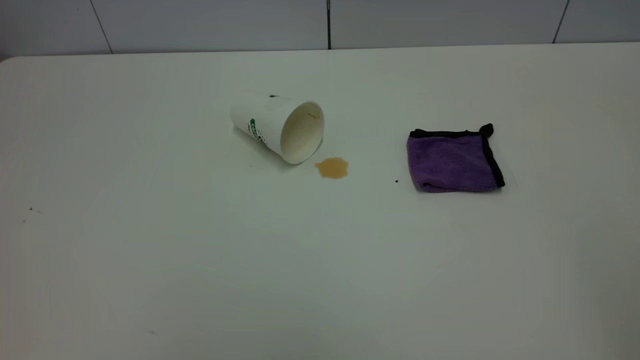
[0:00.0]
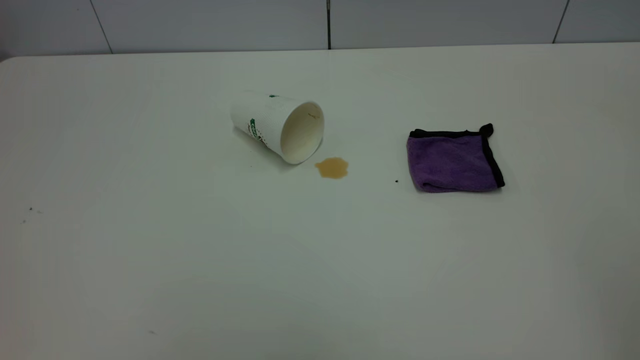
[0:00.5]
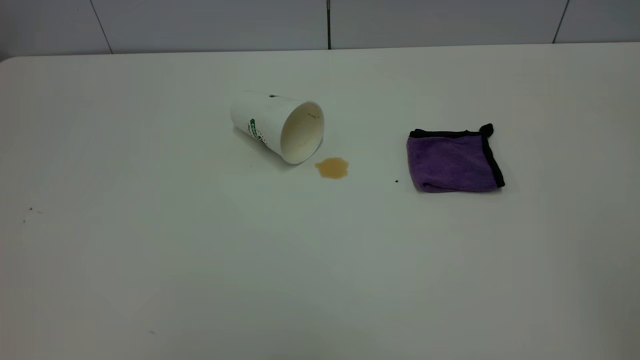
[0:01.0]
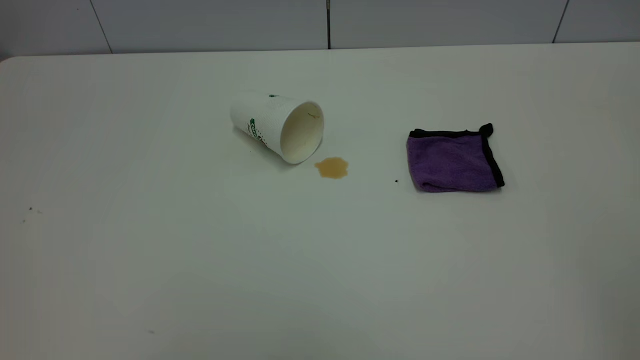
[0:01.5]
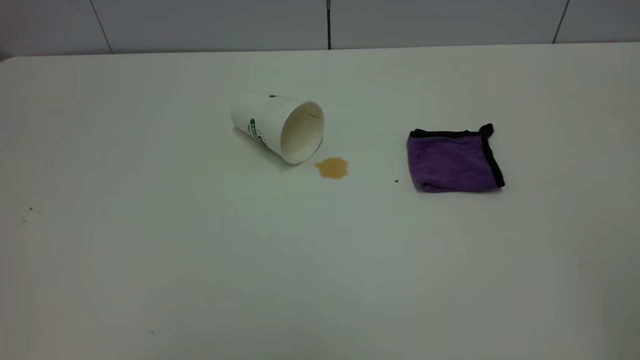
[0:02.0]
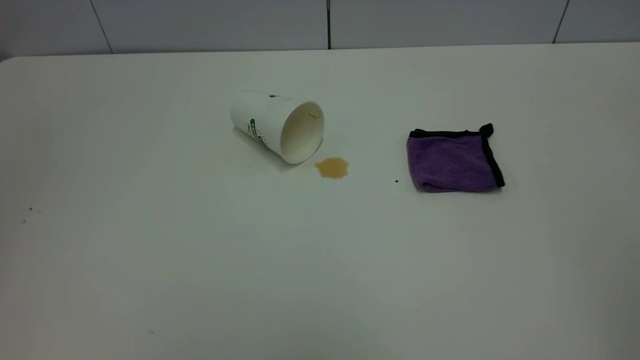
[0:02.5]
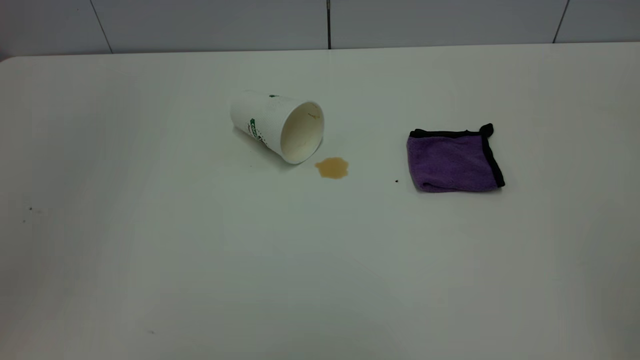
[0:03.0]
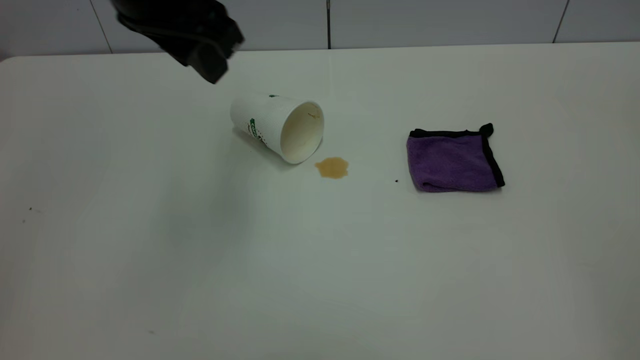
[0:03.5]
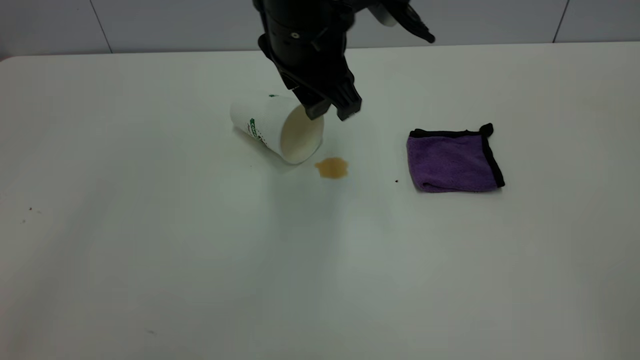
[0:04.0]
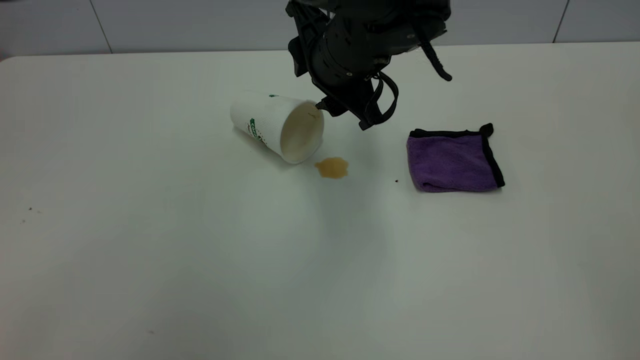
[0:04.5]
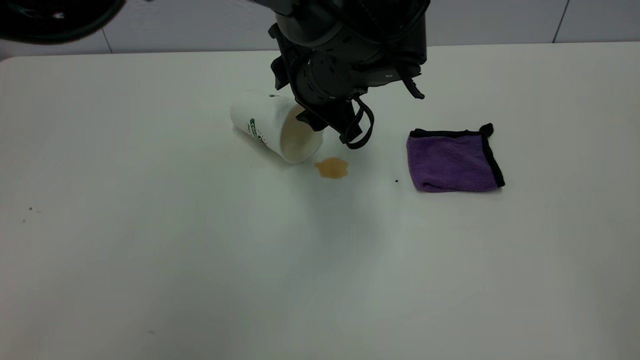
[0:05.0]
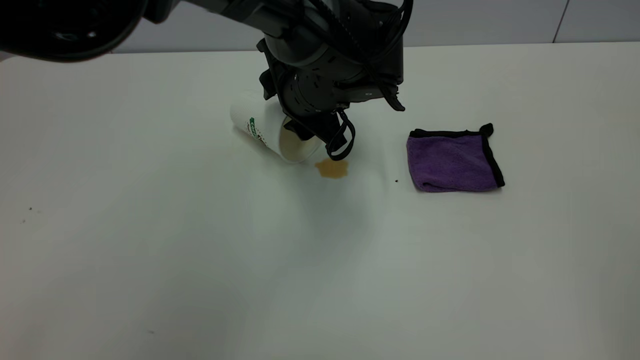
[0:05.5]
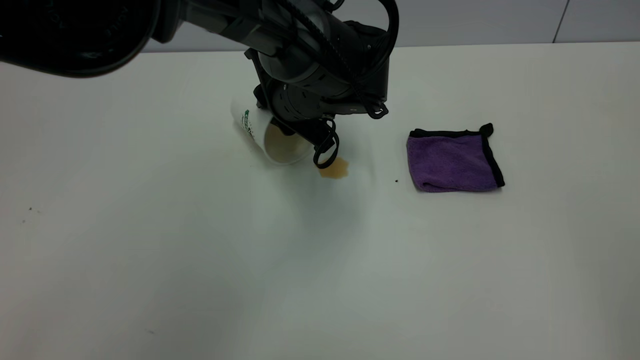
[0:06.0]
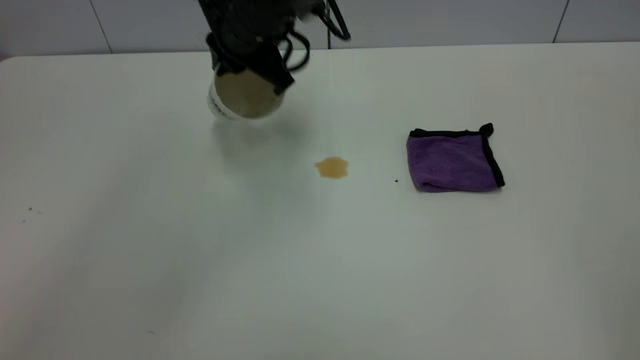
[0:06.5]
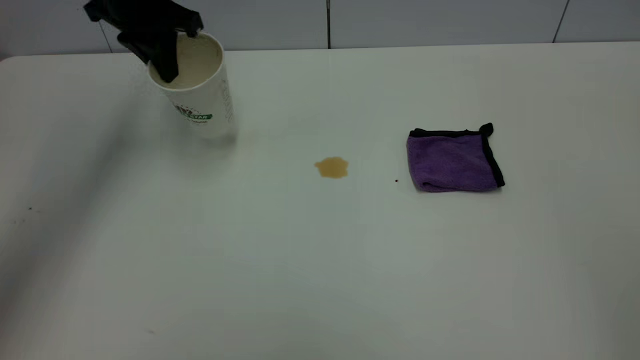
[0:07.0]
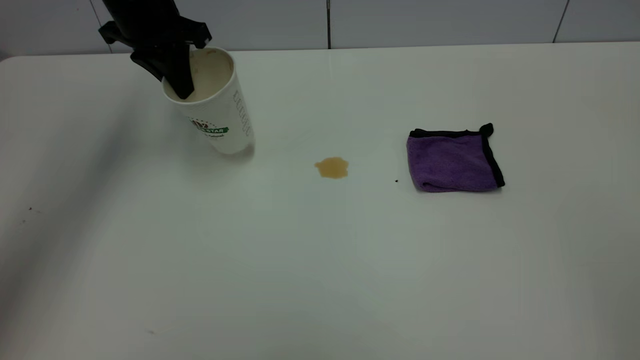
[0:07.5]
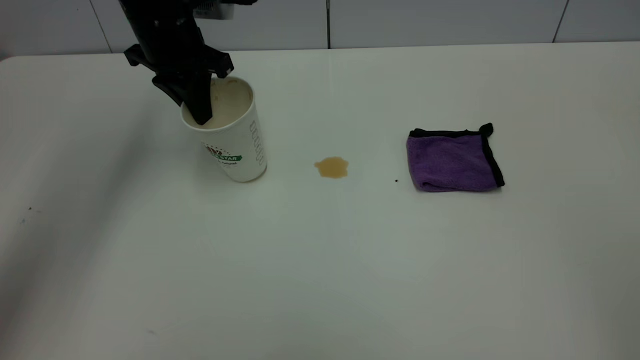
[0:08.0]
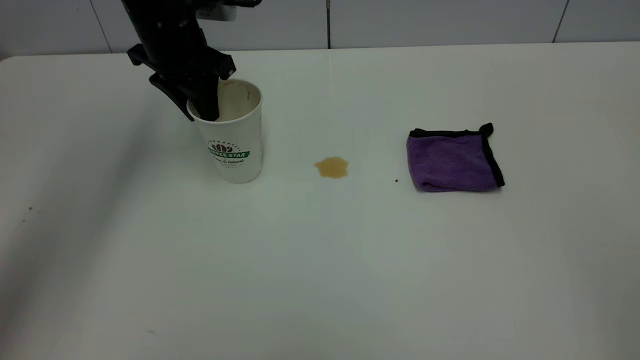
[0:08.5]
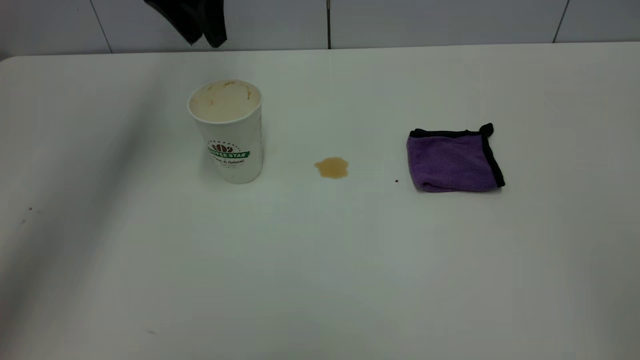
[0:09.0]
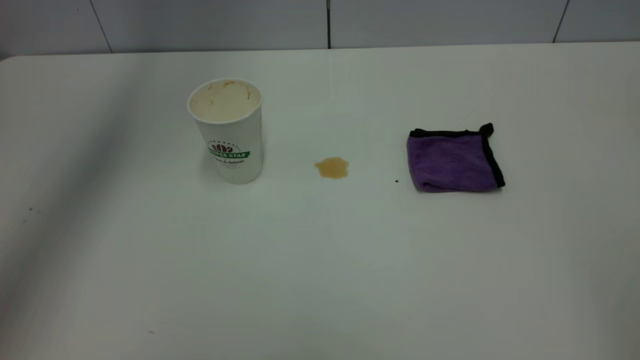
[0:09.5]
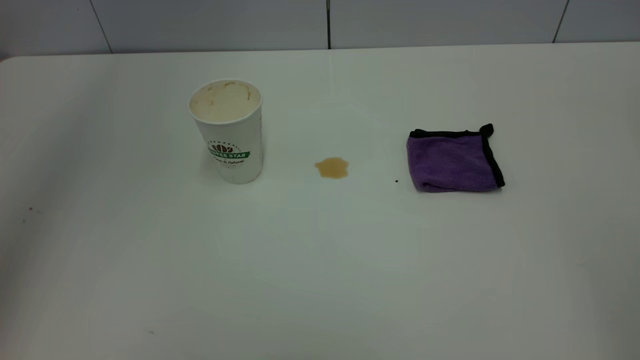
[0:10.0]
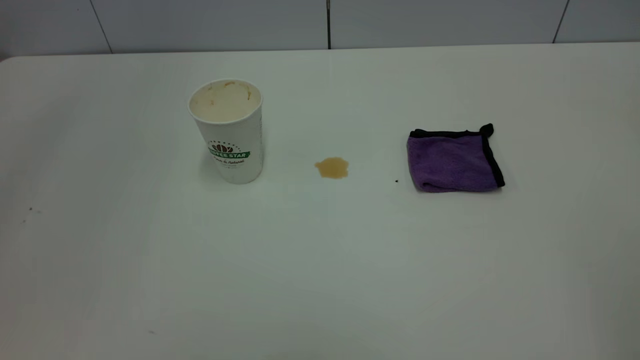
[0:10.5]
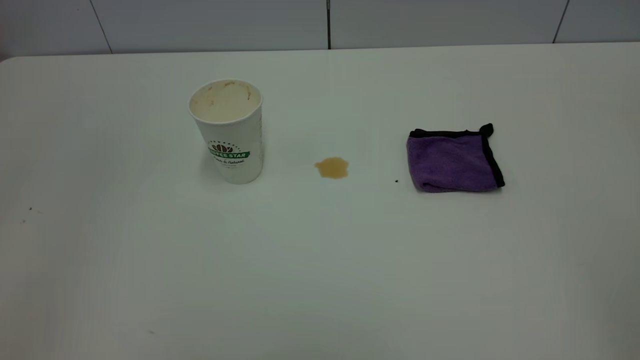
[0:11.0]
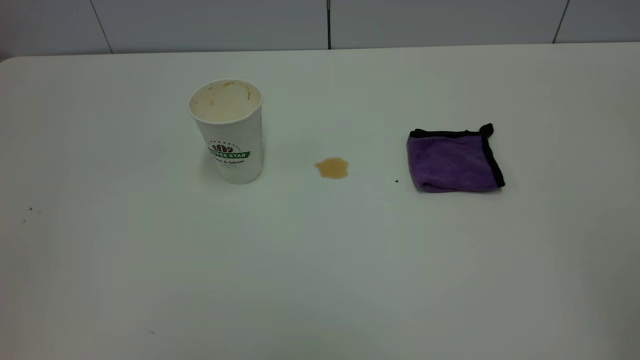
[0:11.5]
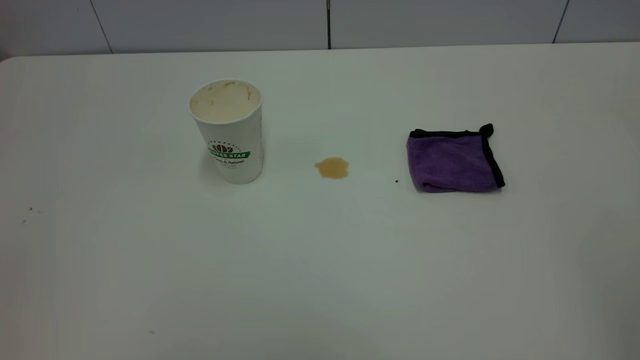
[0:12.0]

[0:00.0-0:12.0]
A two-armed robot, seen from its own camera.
Task of the whole recording: the left gripper pick up the fallen cup and place it upright, the right gripper grasp the purple rag and wipe the tea stain on the table, the right gripper put the purple rag back in its original position.
Step, 0:00.0 to 0:08.5: Stand the paper cup upright.
0:00.0 to 0:02.0: Both grippers stay put.
0:02.0 to 0:04.0: The left gripper travels forward and to the right by some 50 cm.
0:04.0 to 0:06.0: The left gripper is displaced downward and forward by some 15 cm, and closes.
0:06.0 to 0:08.0: The left gripper is displaced to the left and upward by some 20 cm, and closes.
0:08.0 to 0:10.0: The left gripper travels upward by some 40 cm, and opens up.

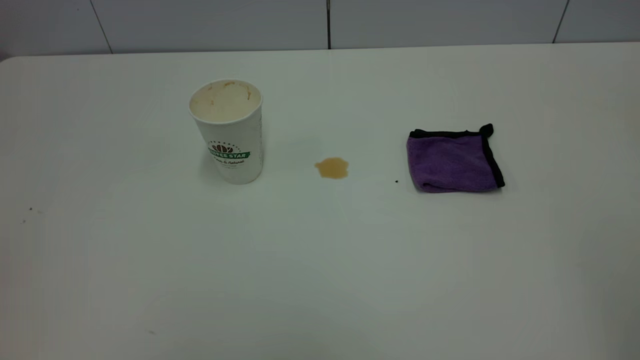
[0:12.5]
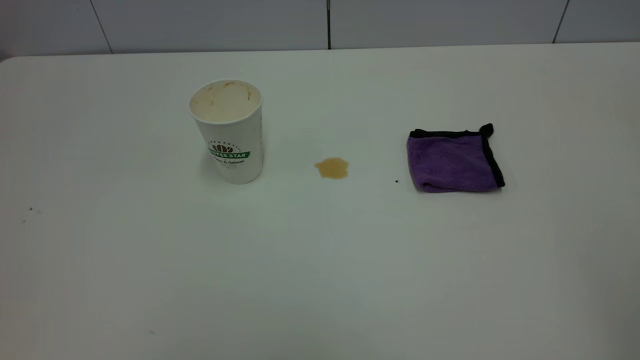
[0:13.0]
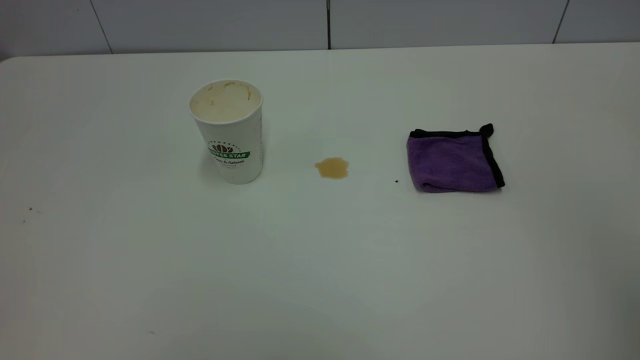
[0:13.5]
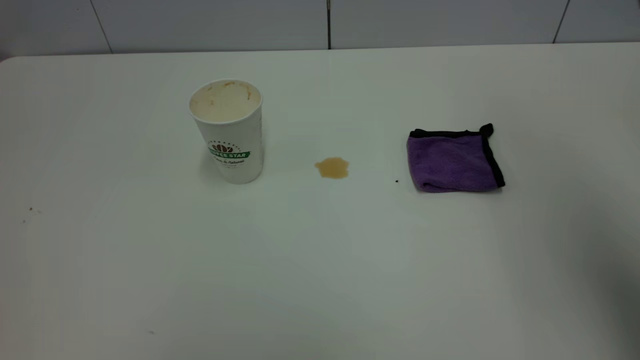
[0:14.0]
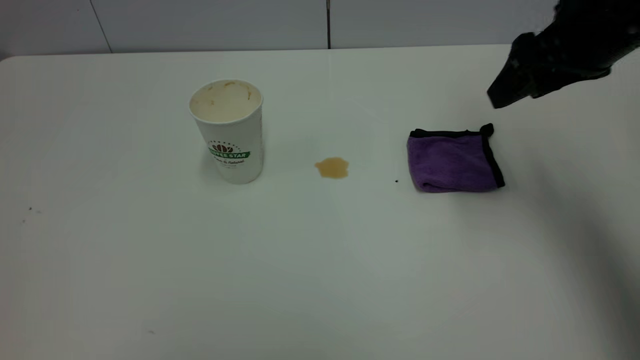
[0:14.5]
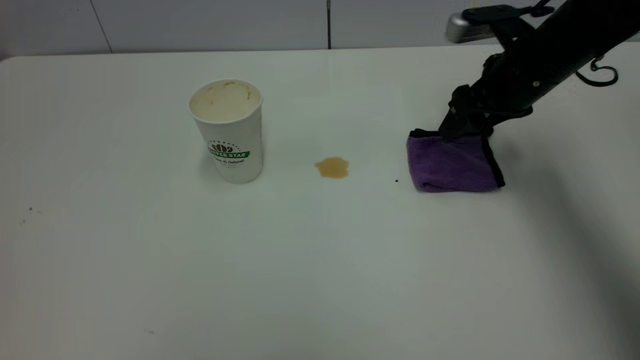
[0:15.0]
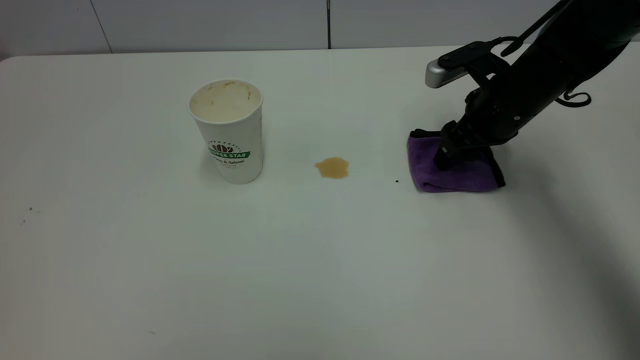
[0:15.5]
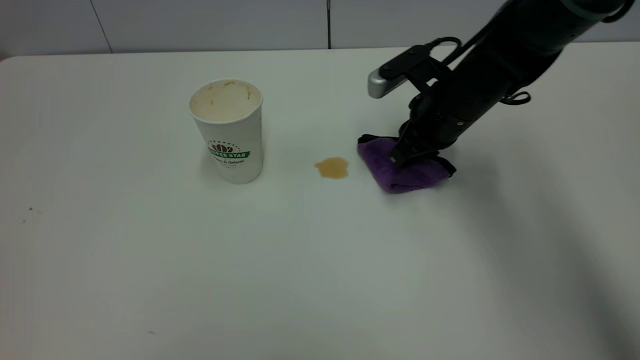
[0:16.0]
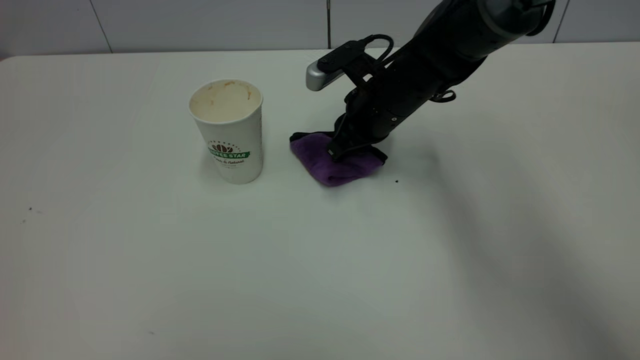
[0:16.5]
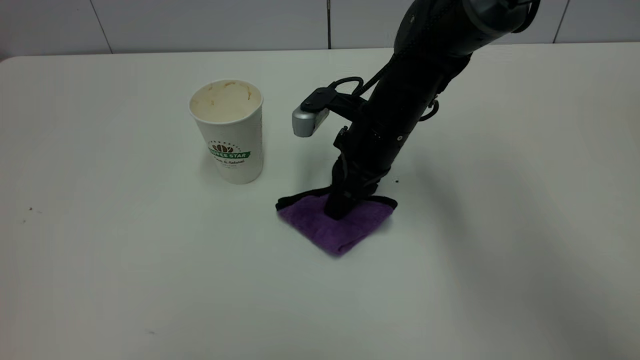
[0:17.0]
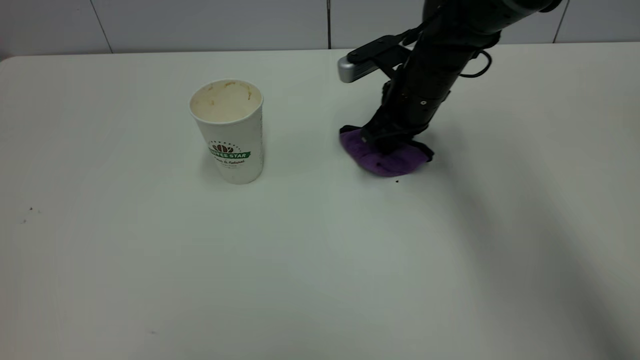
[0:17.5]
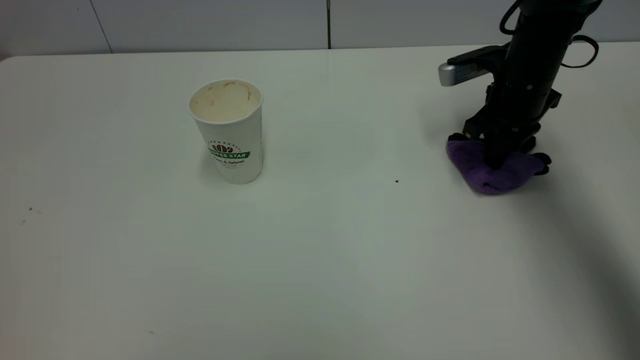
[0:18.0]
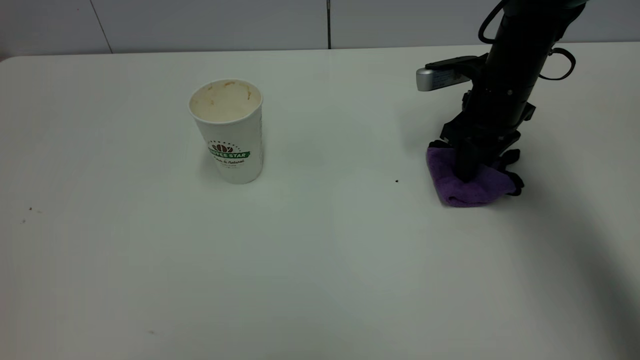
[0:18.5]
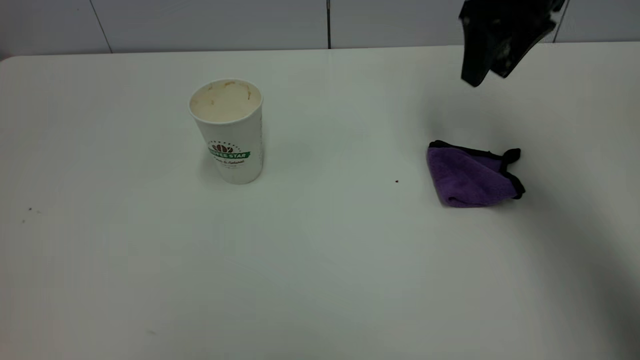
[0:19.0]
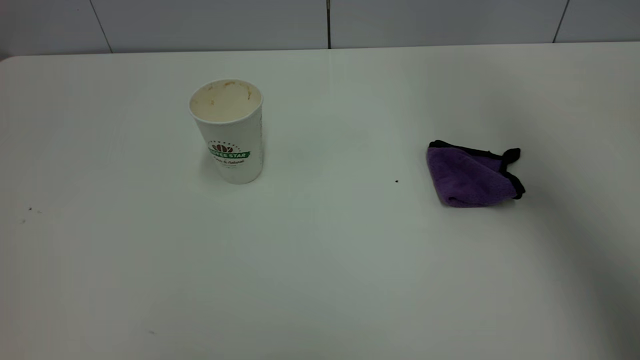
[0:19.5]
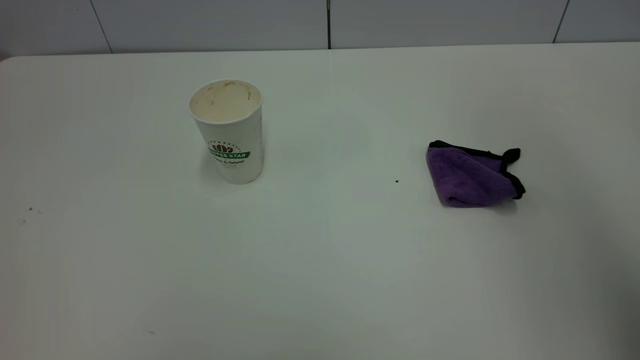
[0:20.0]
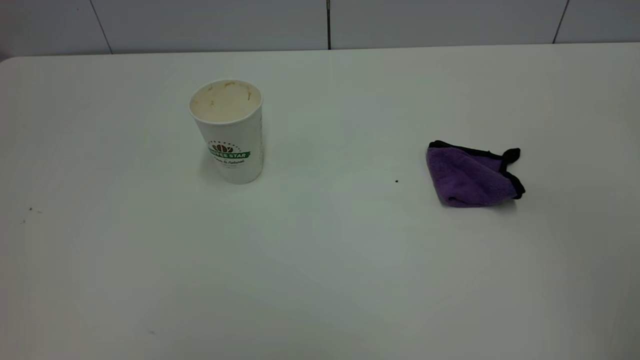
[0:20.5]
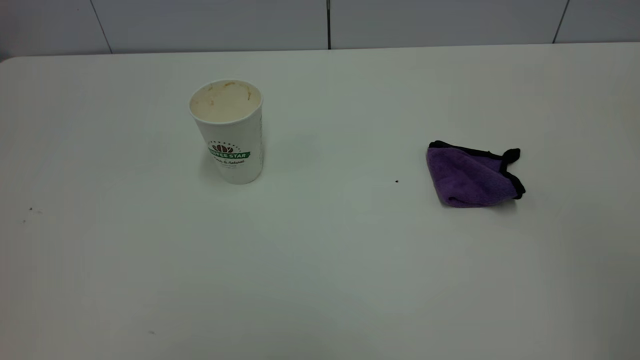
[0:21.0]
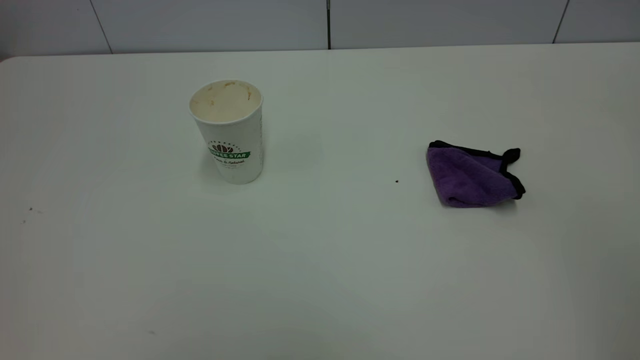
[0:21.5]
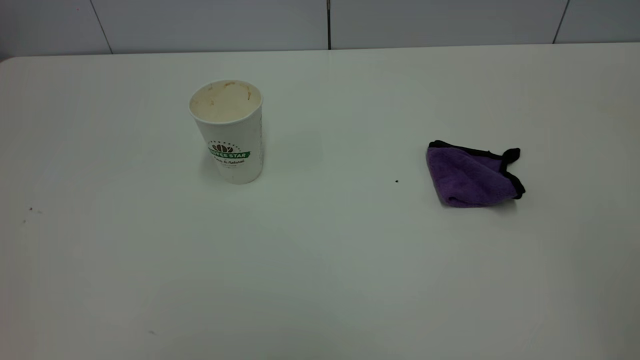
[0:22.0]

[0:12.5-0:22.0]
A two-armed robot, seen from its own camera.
Task of the whole recording: the left gripper pick up the fallen cup and place it upright, the right gripper grasp the purple rag and wipe the tea stain on the table, the right gripper put the purple rag back in its original position.
Step, 0:12.5 to 0:19.0: Wipe the stains off the table with a rag.
0:12.5 to 0:14.5: The right gripper shifts about 40 cm forward and downward.
0:14.5 to 0:16.5: The right gripper is displaced to the left, downward and forward by roughly 25 cm, and closes up.
0:16.5 to 0:18.0: The right gripper goes roughly 15 cm to the right.
0:18.0 to 0:20.0: The right gripper is displaced upward and backward by some 40 cm, and opens.
